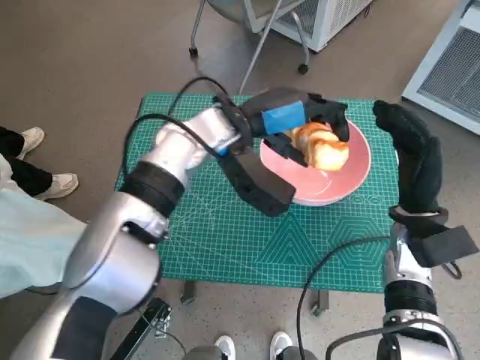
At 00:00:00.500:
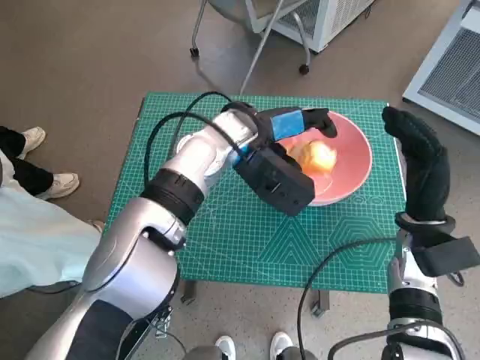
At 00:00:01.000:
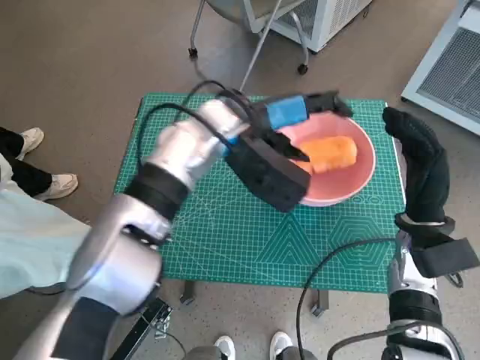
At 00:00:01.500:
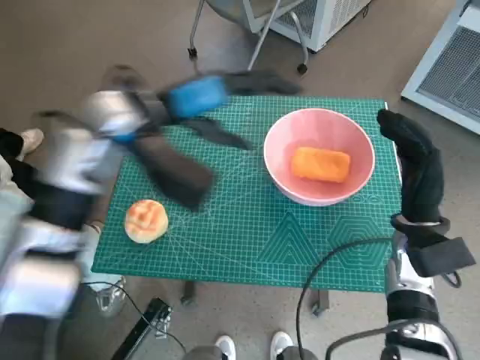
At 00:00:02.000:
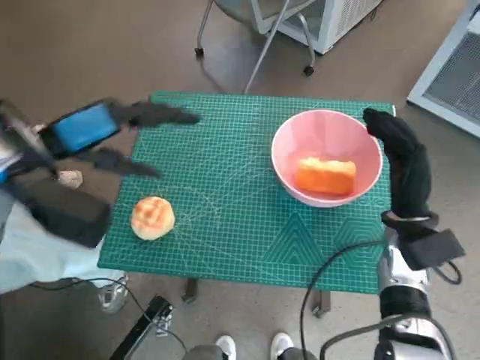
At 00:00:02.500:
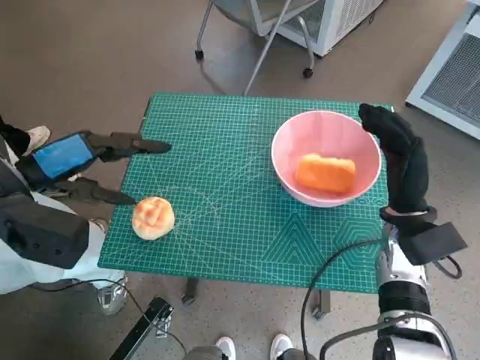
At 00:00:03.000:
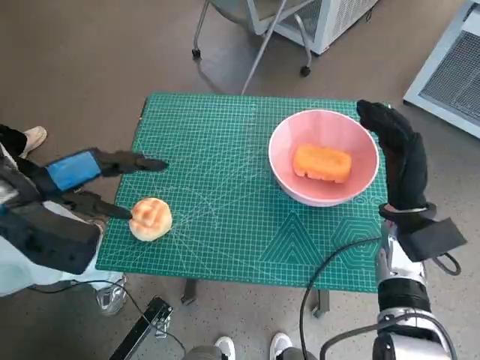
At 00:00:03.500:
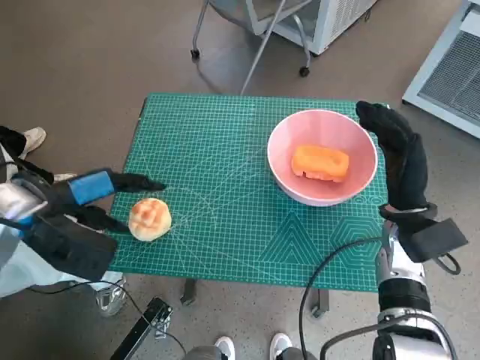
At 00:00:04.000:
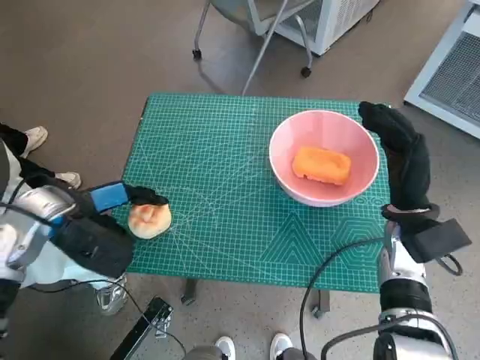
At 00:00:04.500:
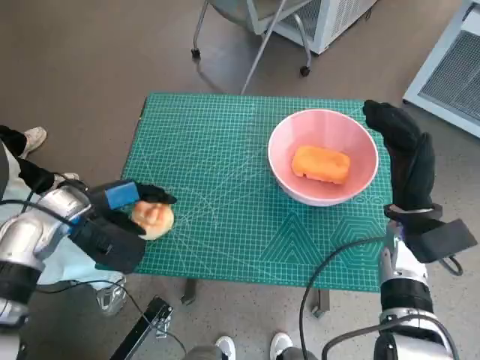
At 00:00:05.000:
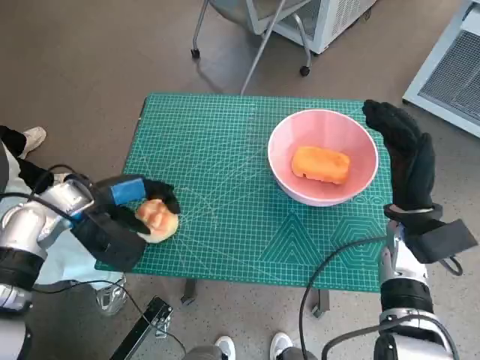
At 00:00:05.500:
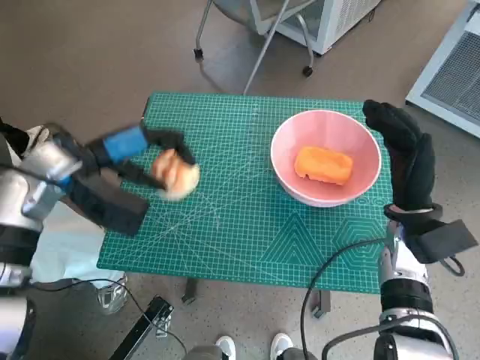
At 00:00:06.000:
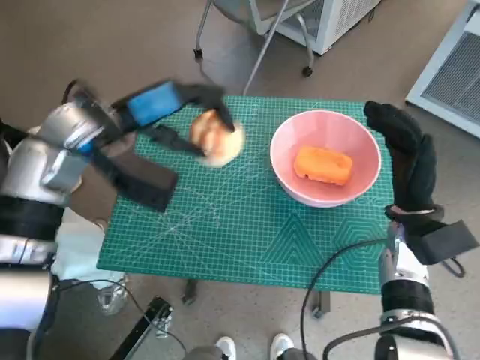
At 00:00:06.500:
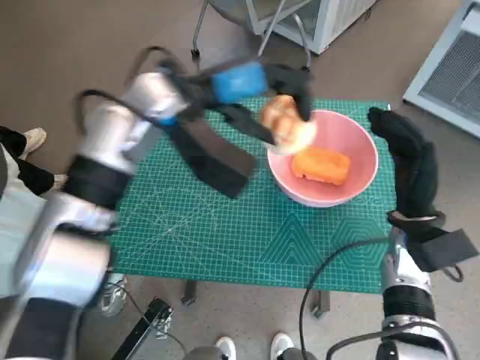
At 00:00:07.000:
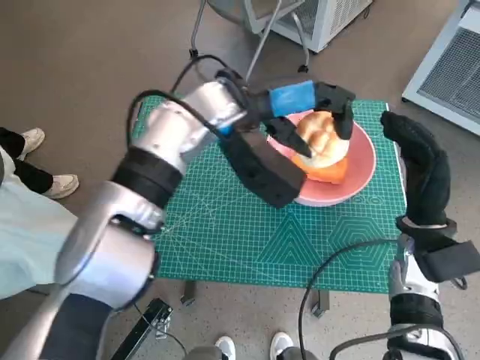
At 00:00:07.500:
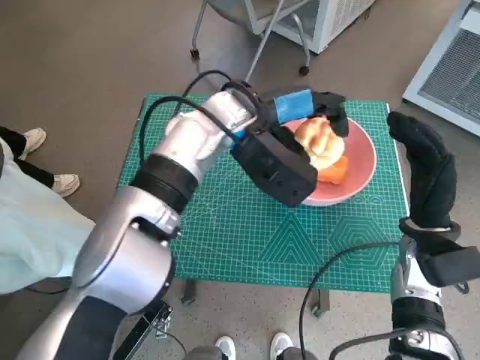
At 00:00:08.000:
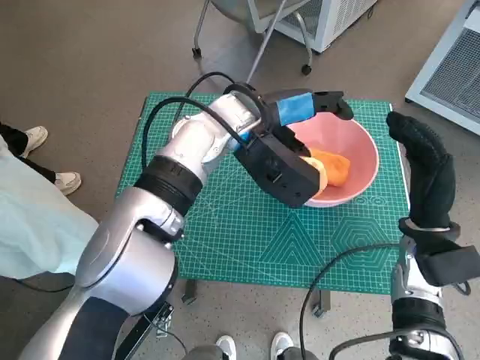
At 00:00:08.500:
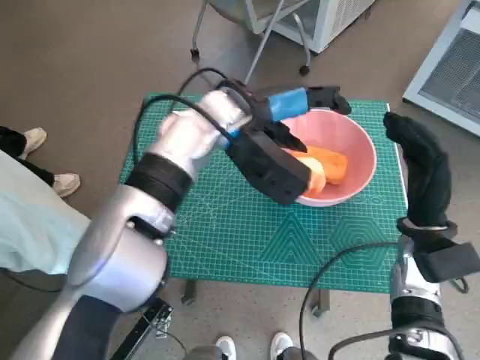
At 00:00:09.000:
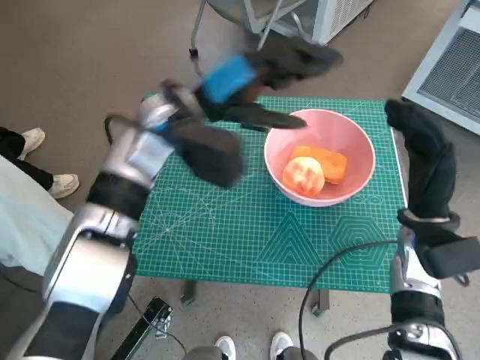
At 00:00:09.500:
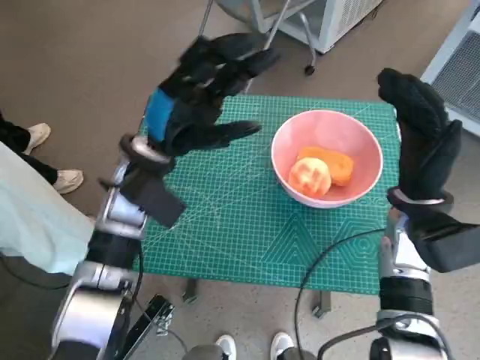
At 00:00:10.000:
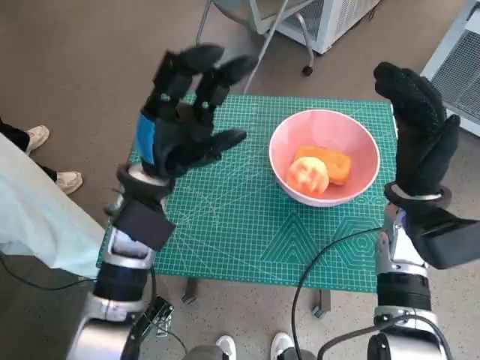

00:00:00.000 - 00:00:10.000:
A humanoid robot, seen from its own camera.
Task of the whole recording: Push the bowl to the center of the table and put the bread into the bowl.
Step, 00:00:01.500 - 00:00:04.500: Grasp the round bread with left hand.
Step, 00:00:05.000 - 00:00:07.500: Place the round bread in pink bowl with left hand.
00:00:00.000 - 00:00:02.000: The left hand goes about 20 cm to the left and backward.
00:00:02.000 - 00:00:04.000: The left hand travels downward by about 10 cm.
00:00:04.000 - 00:00:06.000: The left hand is displaced upward, to the right and forward by about 10 cm.
00:00:06.000 - 00:00:08.000: The left hand heads to the right, covering about 15 cm.
00:00:08.000 - 00:00:10.000: The right hand shifts by about 5 cm; the left hand is displaced to the left, backward and downward by roughly 15 cm.
